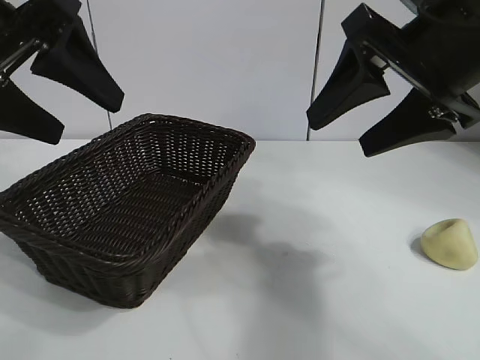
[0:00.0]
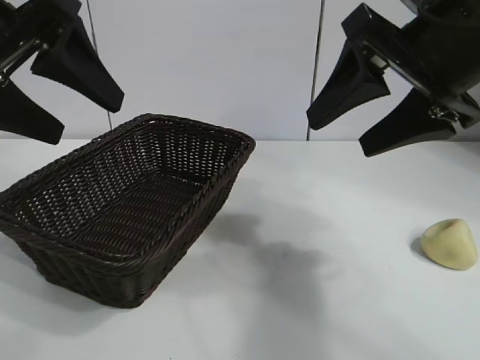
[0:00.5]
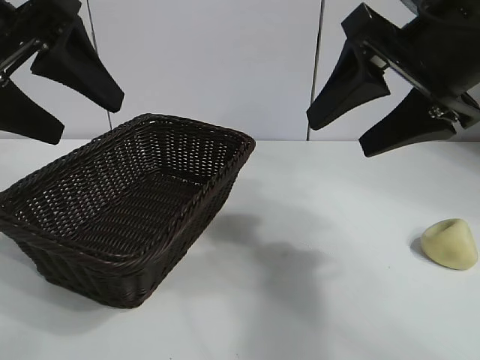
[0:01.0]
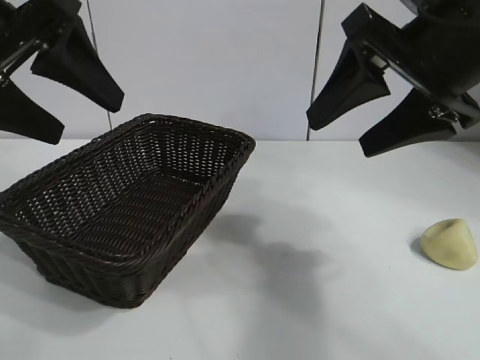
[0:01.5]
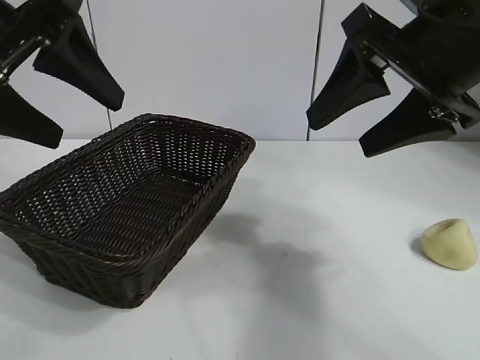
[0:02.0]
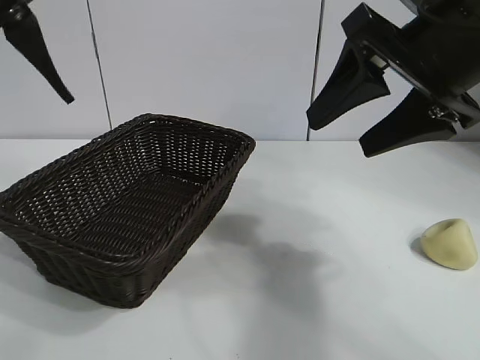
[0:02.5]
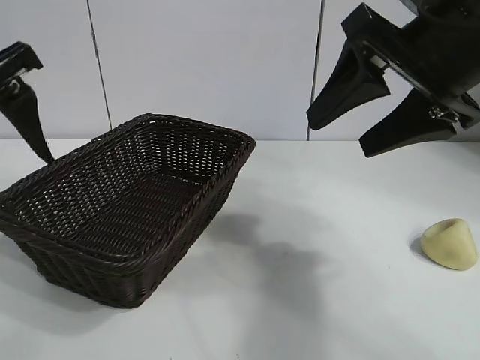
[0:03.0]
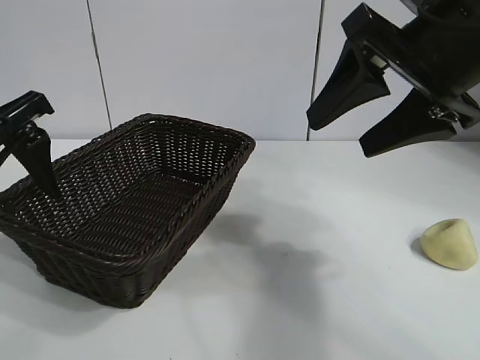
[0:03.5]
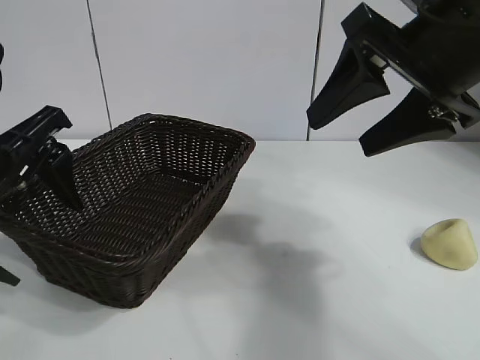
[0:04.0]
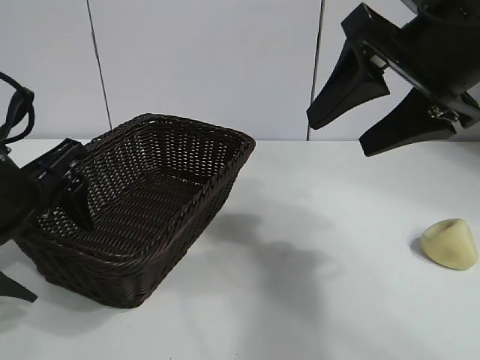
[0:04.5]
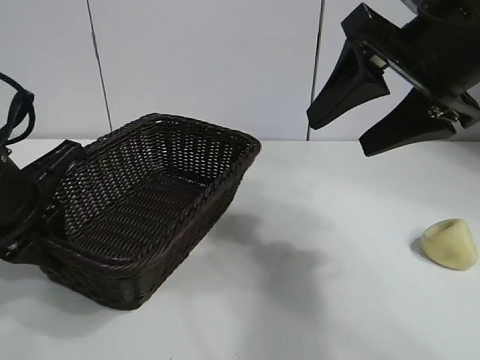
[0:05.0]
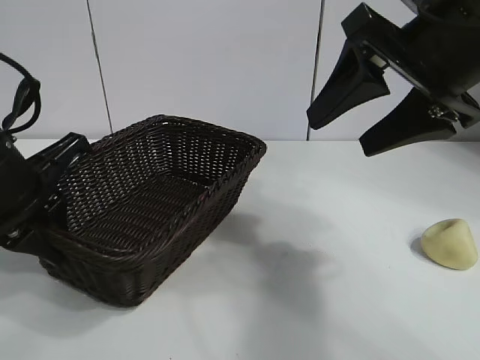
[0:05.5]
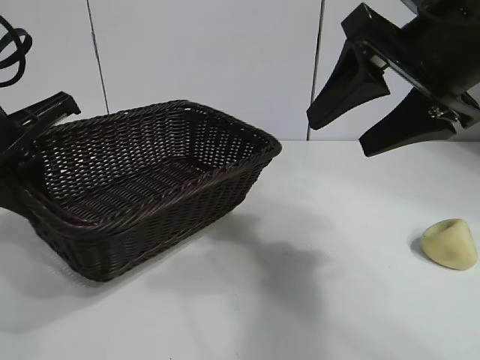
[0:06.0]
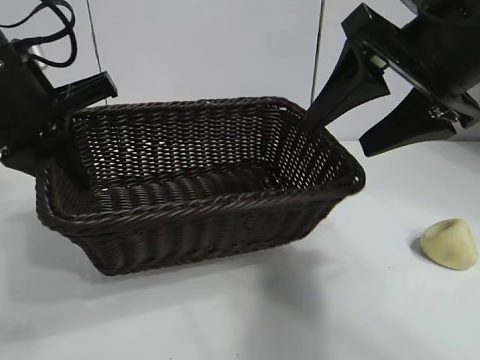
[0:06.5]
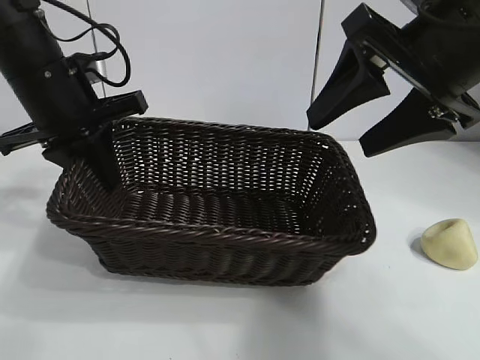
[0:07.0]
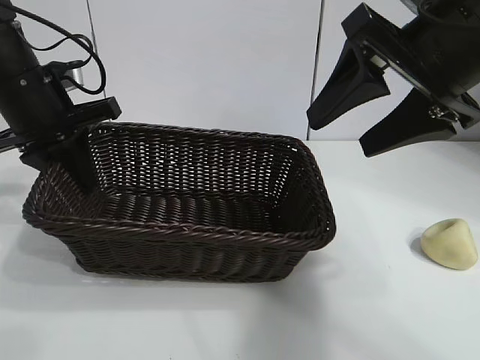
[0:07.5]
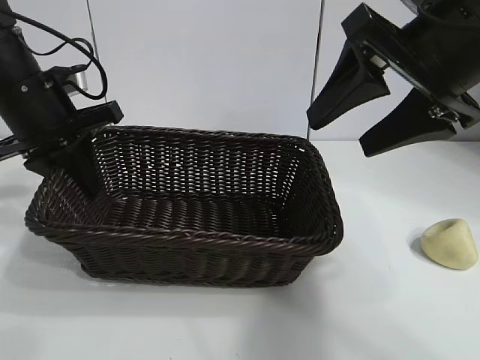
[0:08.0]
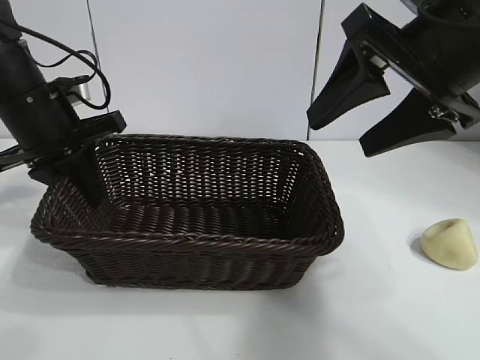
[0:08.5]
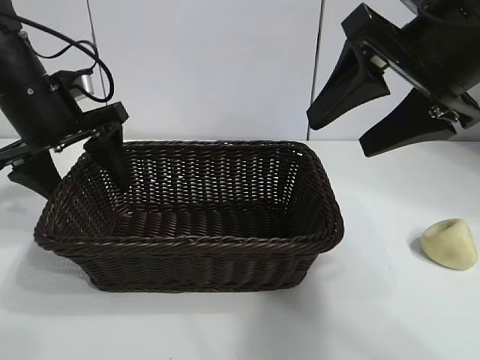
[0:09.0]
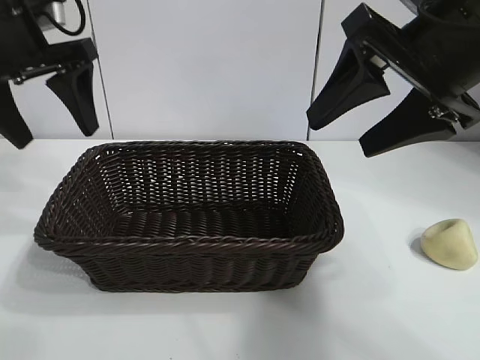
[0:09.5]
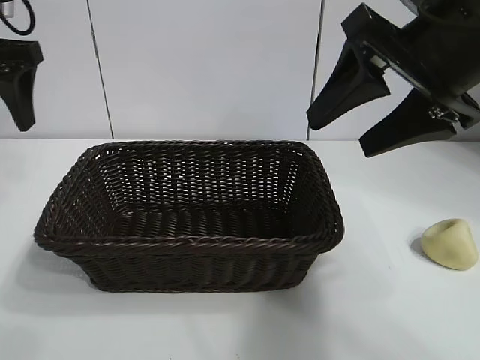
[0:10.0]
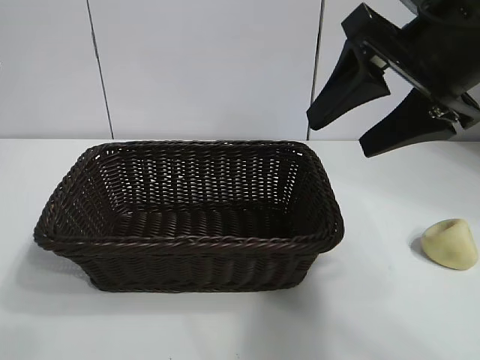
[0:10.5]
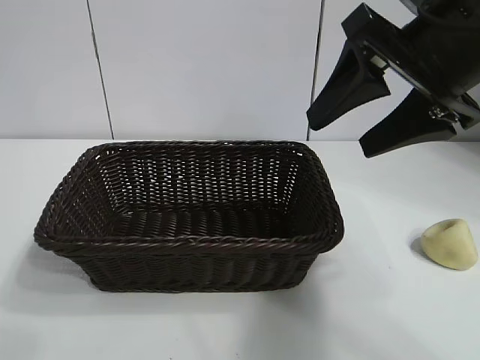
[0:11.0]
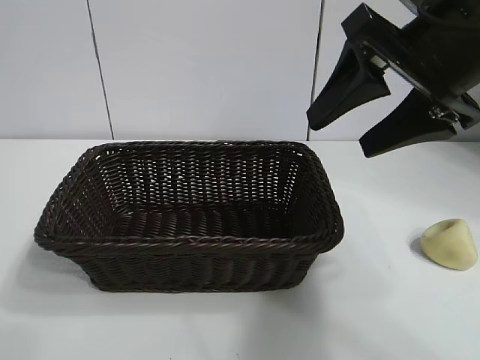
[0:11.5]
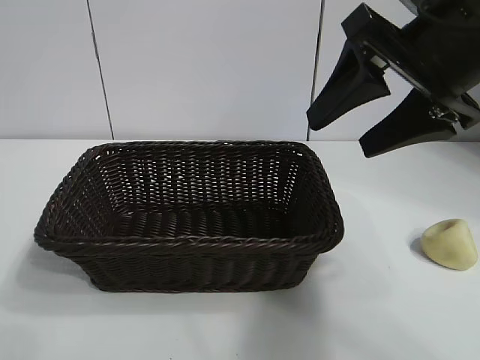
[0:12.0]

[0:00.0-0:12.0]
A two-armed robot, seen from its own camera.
Task of the whole recording: pick up the egg yolk pastry and put it into the basket.
Step, 0:02.0 to 0:05.0: Grasp the basket with left gripper.
Step, 0:05.5 to 0:09.0: Place the basket in the center of view with left gripper.

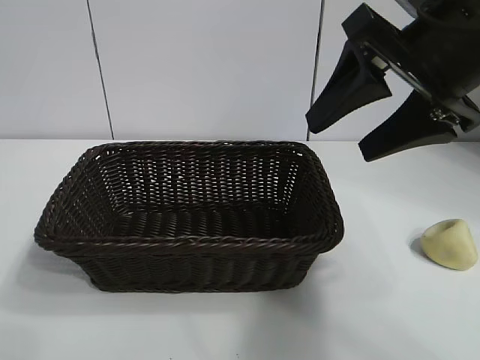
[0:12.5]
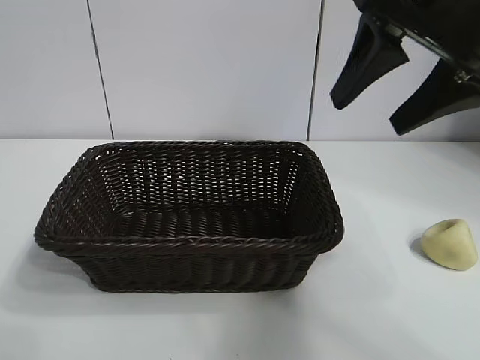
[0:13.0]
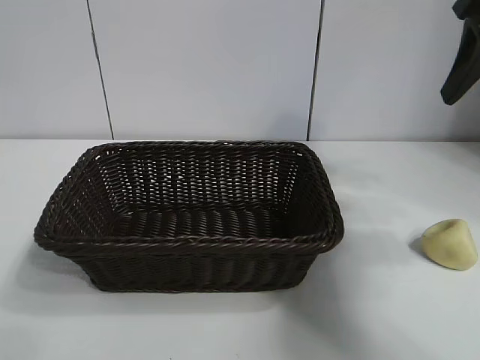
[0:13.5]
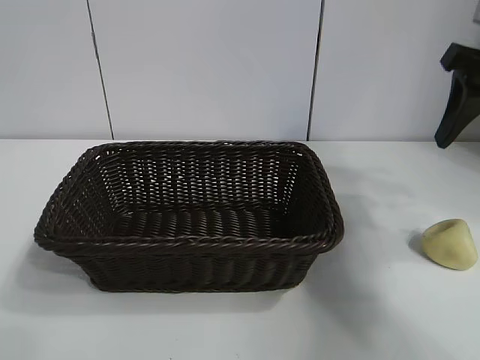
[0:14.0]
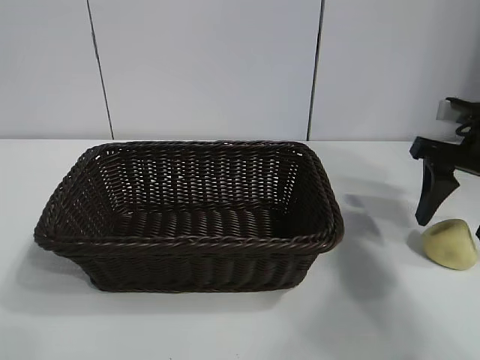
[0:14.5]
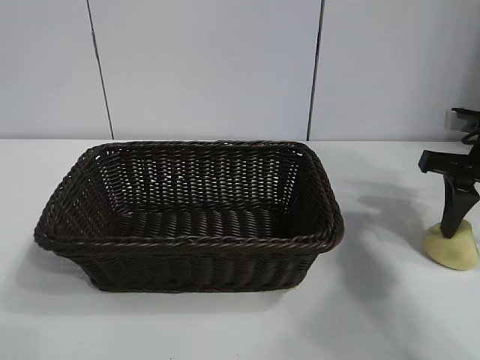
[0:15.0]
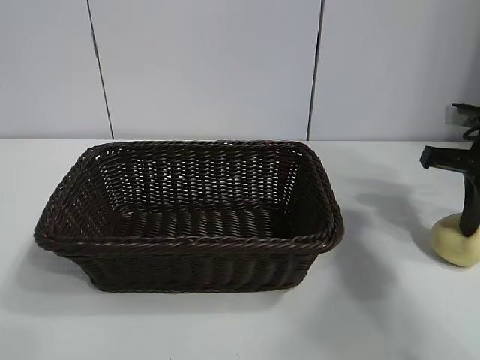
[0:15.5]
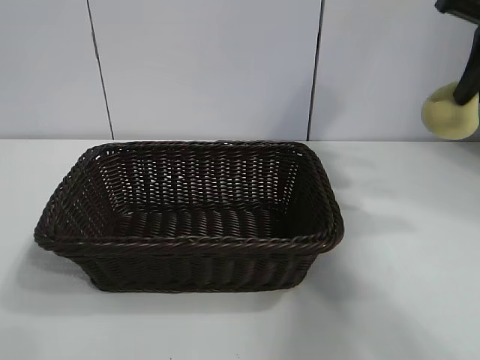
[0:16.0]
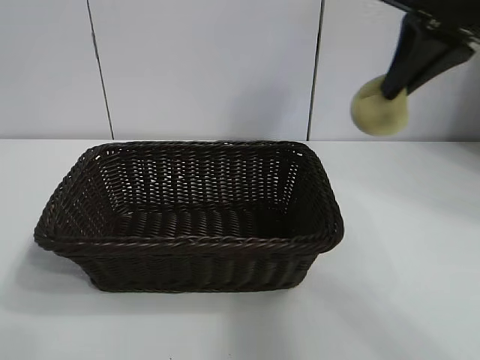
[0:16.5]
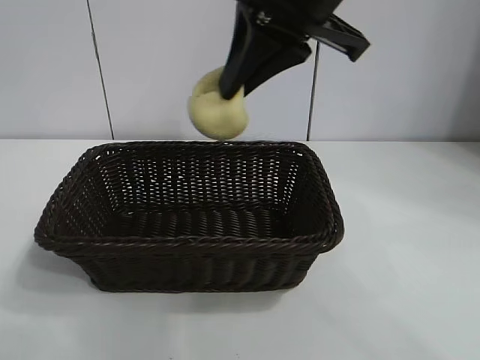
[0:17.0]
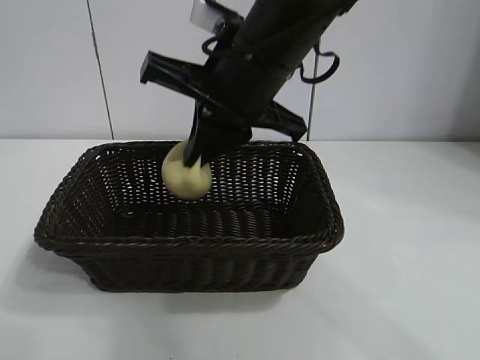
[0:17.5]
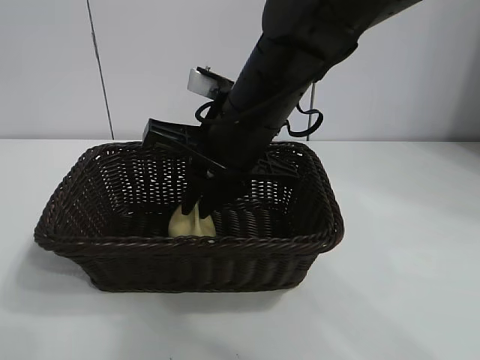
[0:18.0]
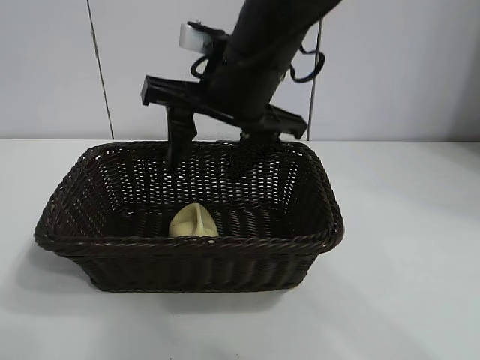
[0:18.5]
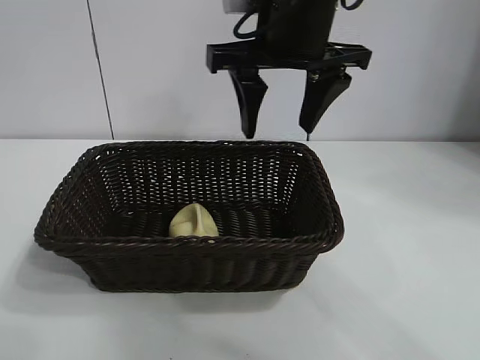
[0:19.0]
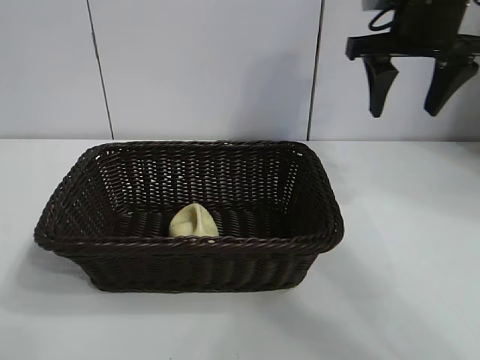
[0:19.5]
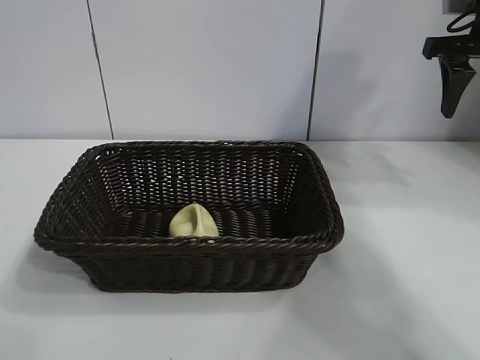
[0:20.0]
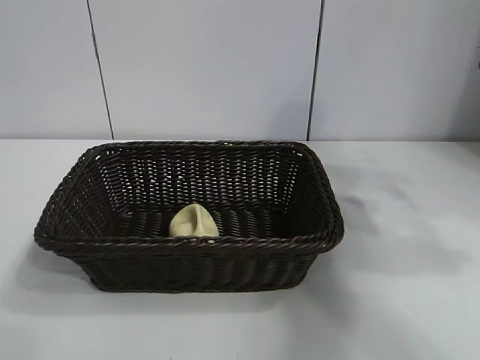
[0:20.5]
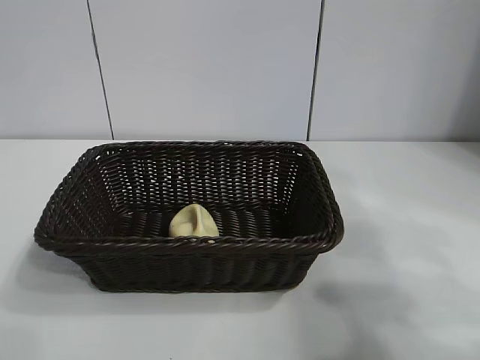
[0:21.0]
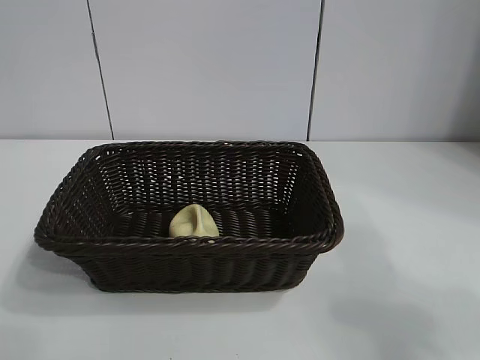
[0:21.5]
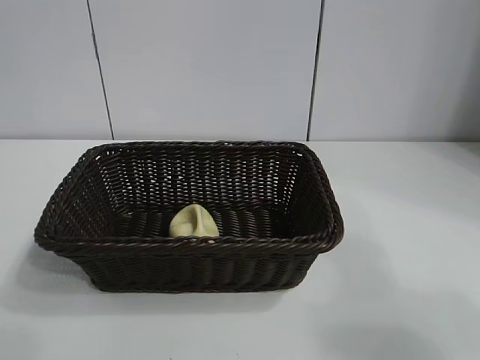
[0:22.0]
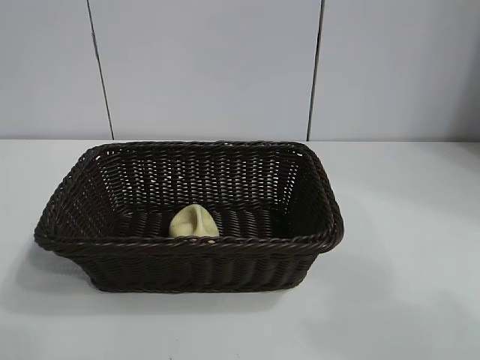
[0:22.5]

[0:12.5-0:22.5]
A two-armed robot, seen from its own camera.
Task of the whole recording: pick up the egg yolk pastry and put it into the basket.
Step, 0:12.5 to 0:15.0: Grasp egg yolk pastry with right gripper.
Step, 0:15.5 to 0:18.0: Place the egg yolk pastry in the basket with right gripper.

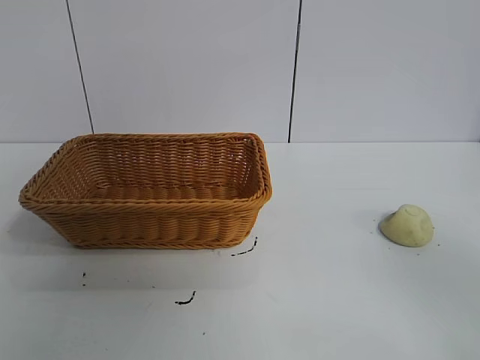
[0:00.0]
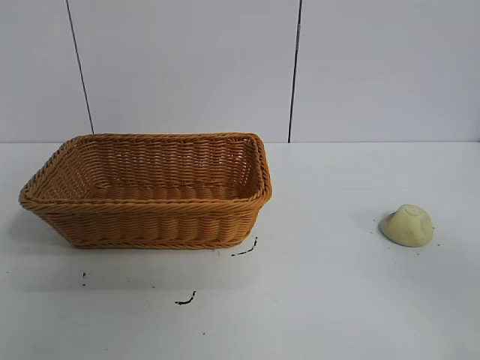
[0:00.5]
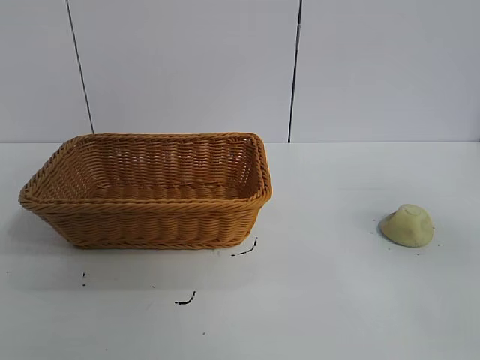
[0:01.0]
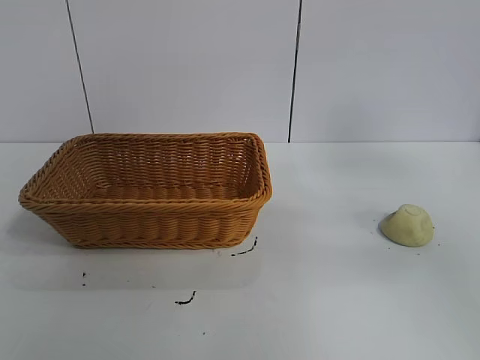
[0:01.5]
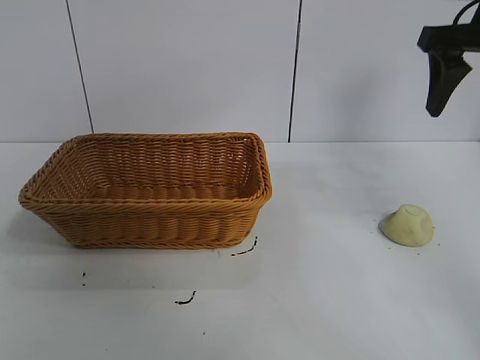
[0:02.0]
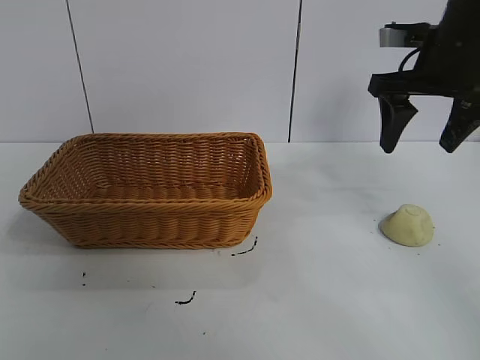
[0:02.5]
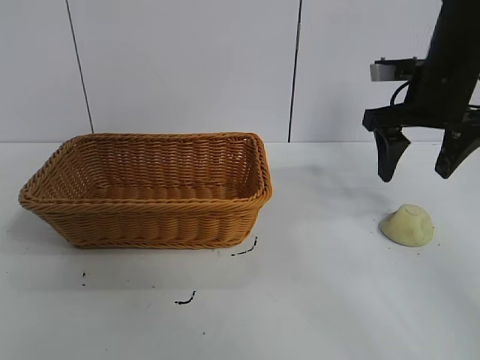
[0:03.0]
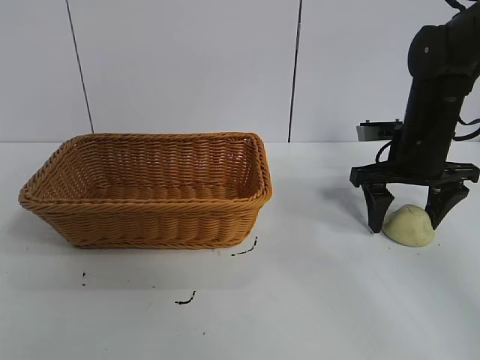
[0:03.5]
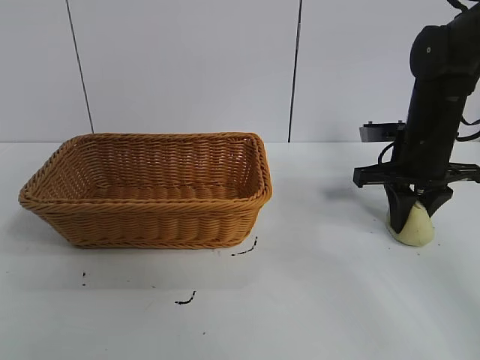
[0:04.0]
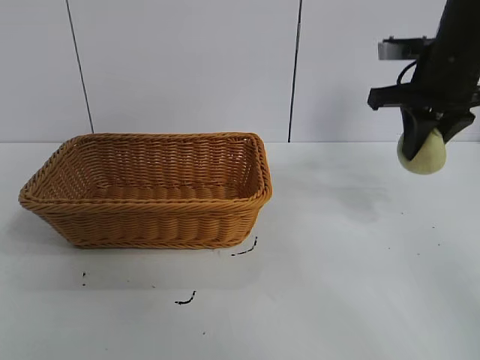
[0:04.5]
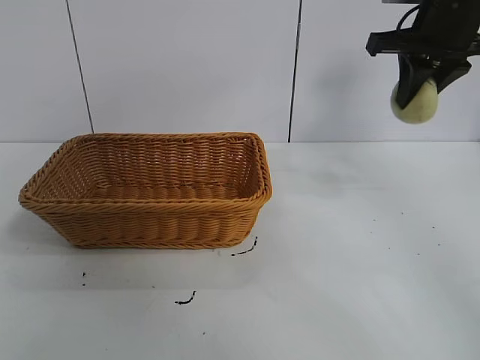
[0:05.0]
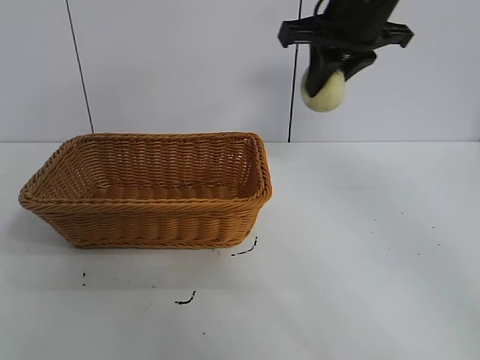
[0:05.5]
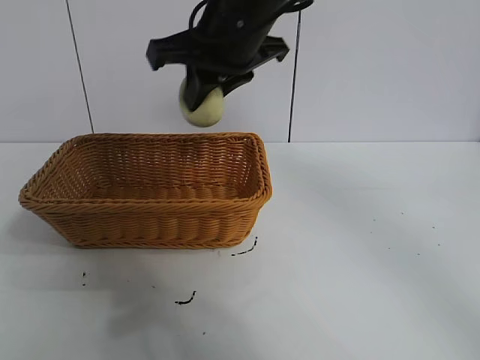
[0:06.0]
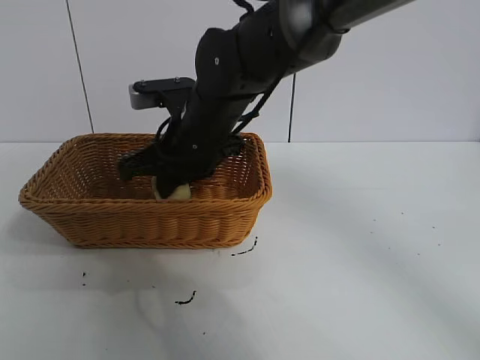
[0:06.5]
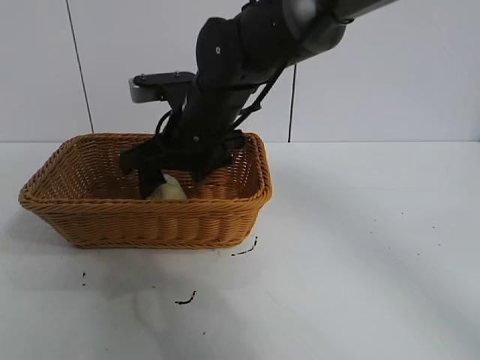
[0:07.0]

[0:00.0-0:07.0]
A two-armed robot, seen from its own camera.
Task of the whole recording: pick up the egg yolk pastry and put it into the basket.
Step, 0:01.0 to 0:03.5: Grasp egg yolk pastry with right gripper.
Step, 0:04.0 to 0:06.5: Place the egg yolk pastry in the basket with right gripper.
